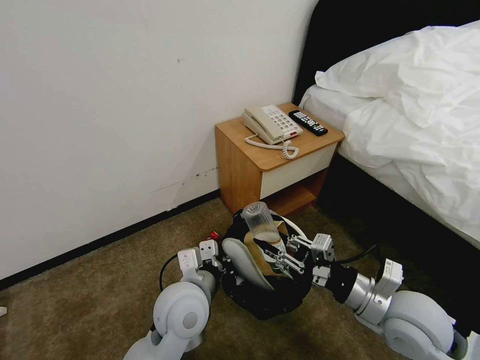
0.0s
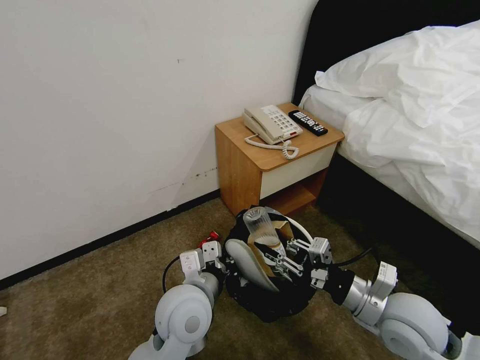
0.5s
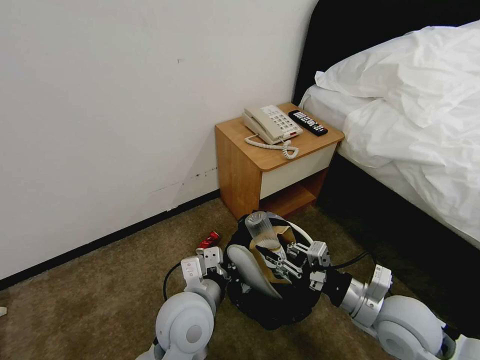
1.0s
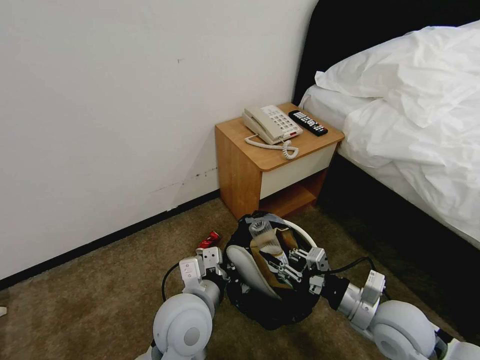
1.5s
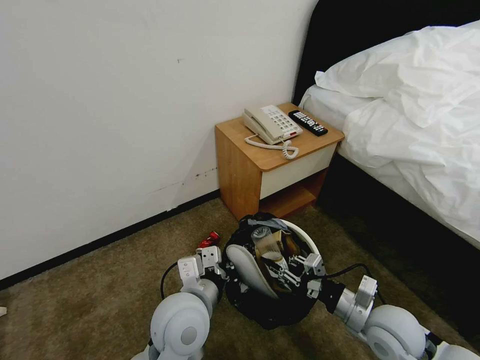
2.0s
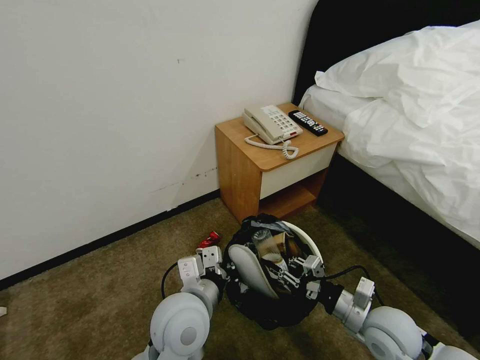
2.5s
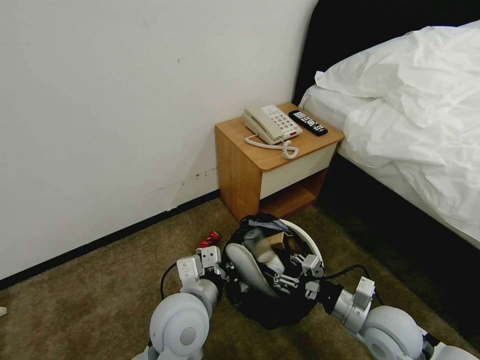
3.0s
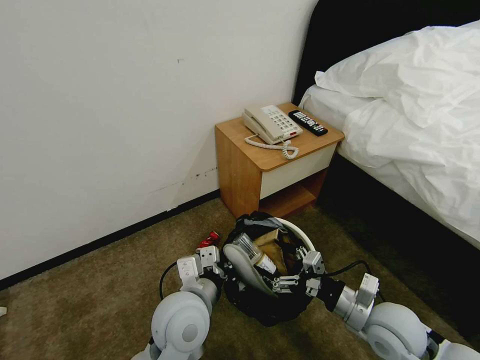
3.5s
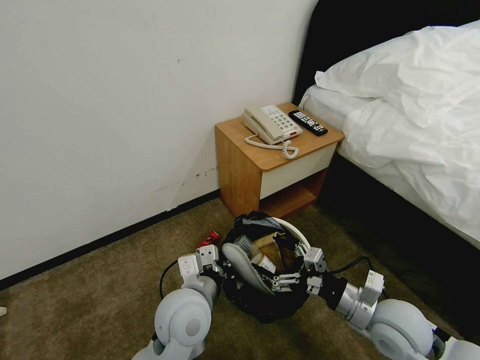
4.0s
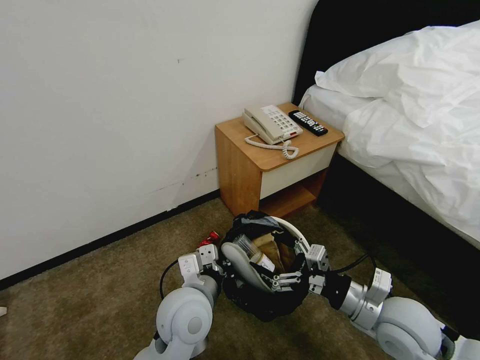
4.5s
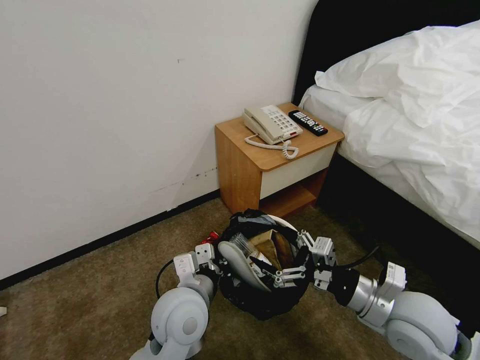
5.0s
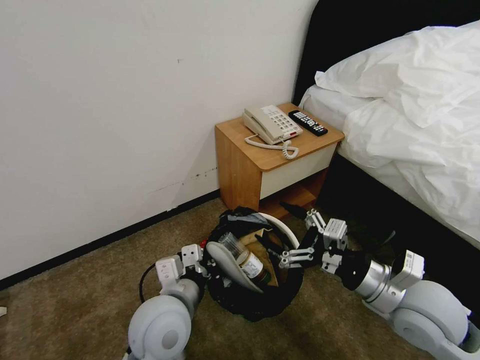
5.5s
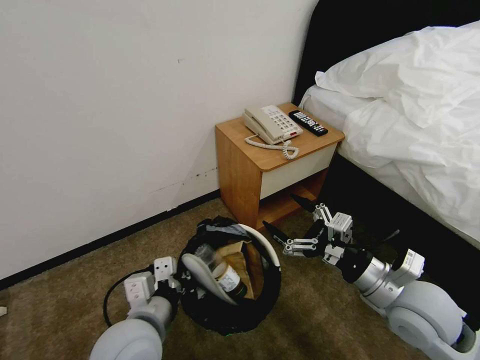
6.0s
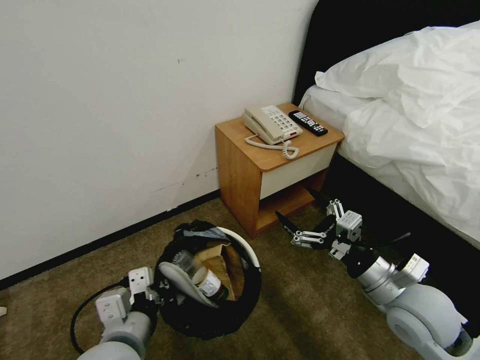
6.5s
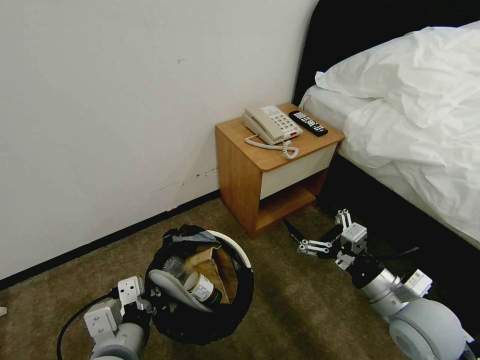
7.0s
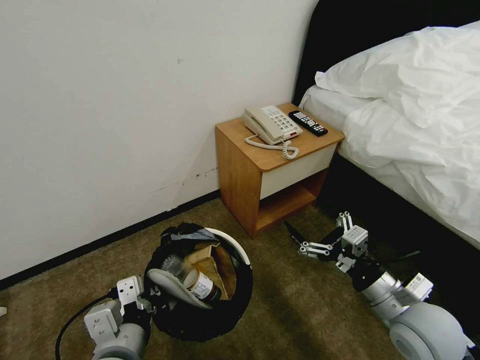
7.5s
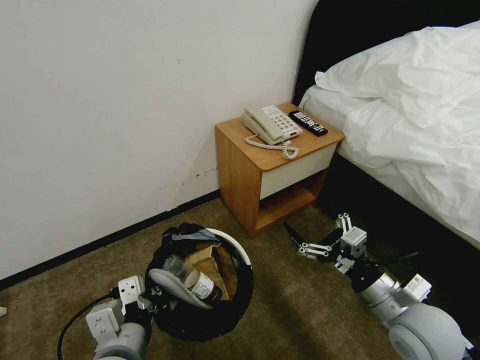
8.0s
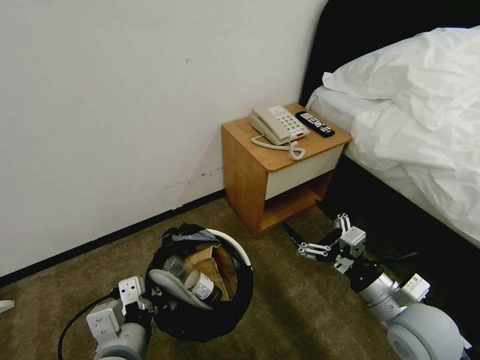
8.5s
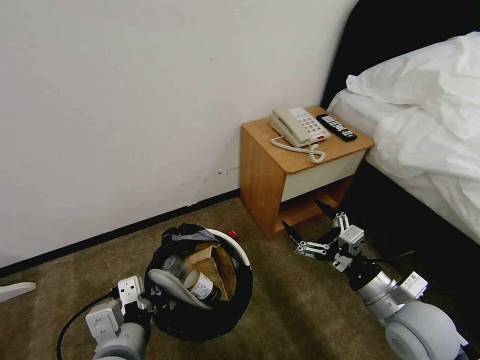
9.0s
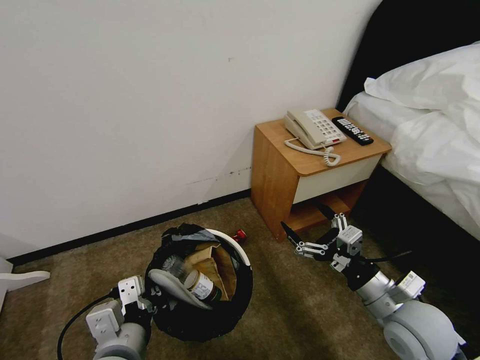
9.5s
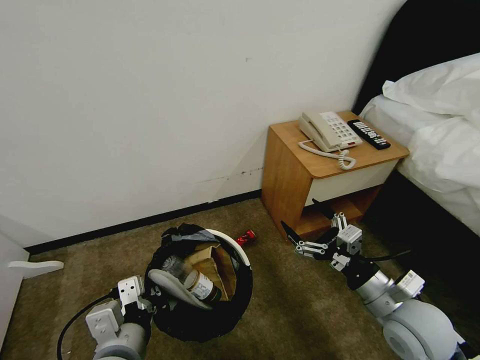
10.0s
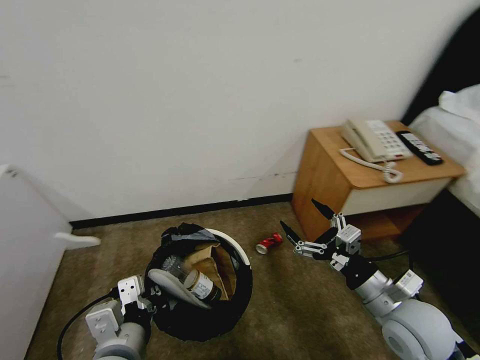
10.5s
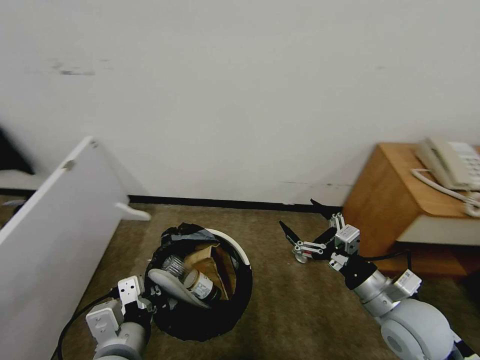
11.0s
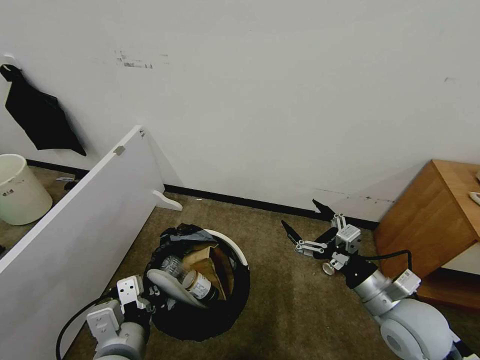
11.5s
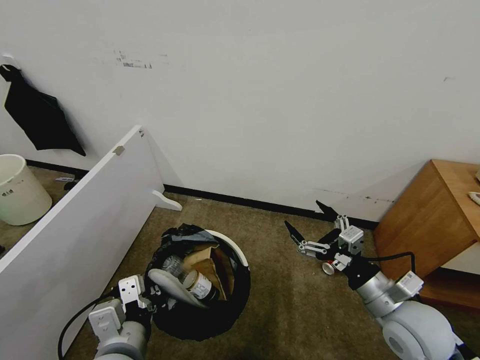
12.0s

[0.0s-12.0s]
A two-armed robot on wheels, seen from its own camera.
Task of the whole recording: Pick up the trash bin, then pick up the garbage from the floor and place it into the trash bin.
0.0s to 2.0s: The right gripper heads downward, covering about 10 cm.
2.0s to 4.0s: The right gripper opens up.
4.0s to 6.0s: The right gripper goes approximately 5 cm upward. The left gripper is displaced to the left and backward by some 10 cm.
6.0s to 8.0s: There are only small adjustments of the grippers.

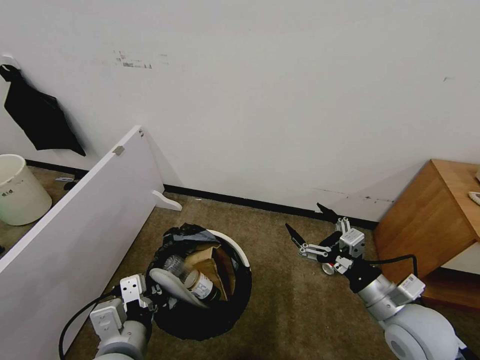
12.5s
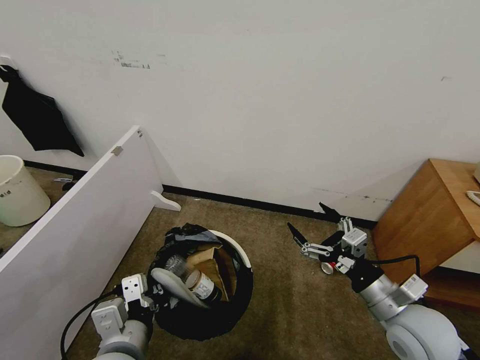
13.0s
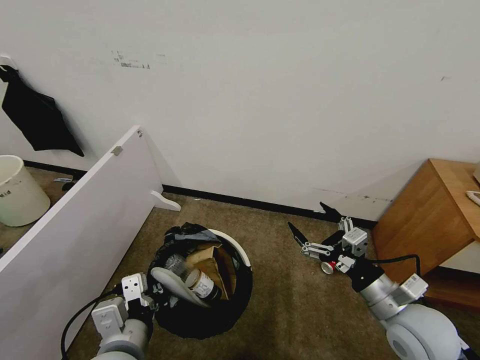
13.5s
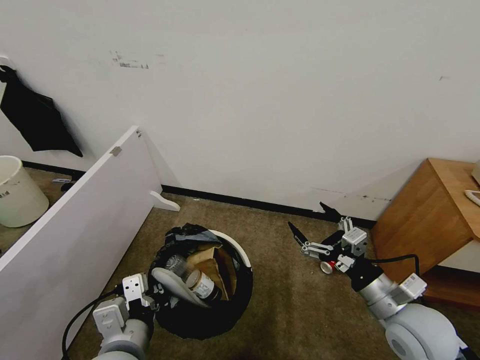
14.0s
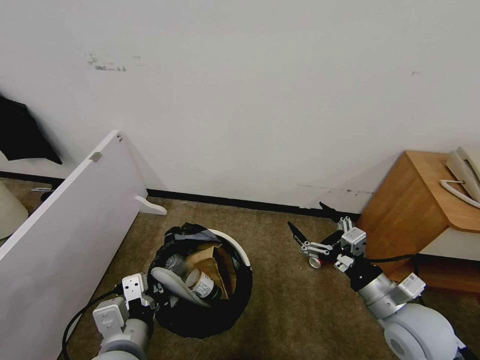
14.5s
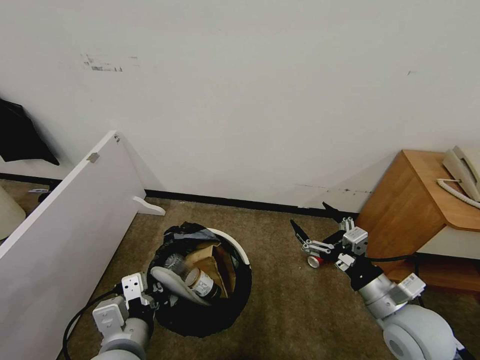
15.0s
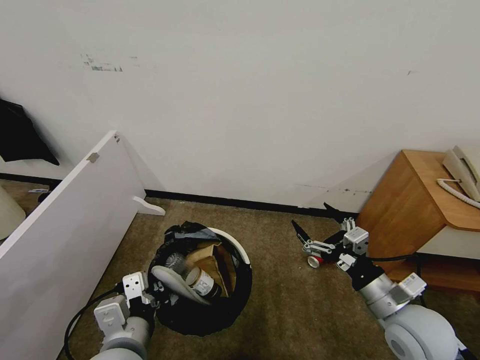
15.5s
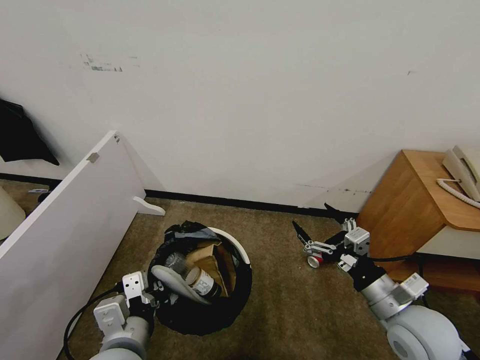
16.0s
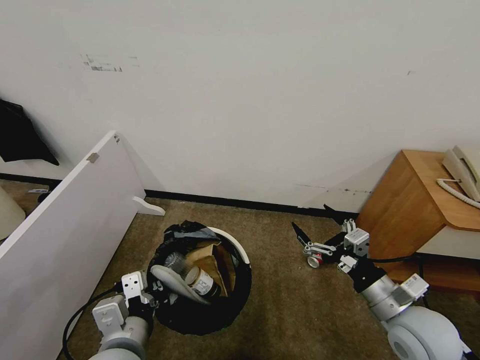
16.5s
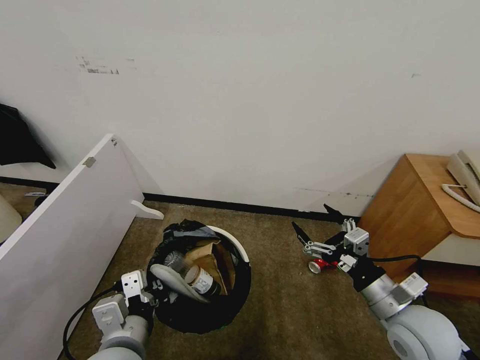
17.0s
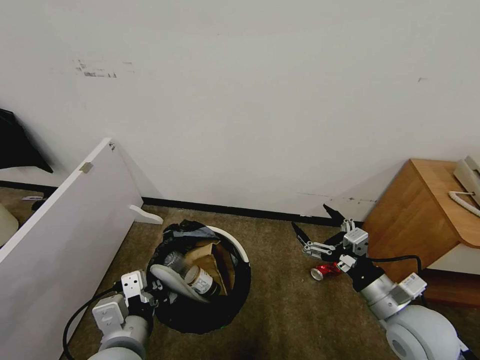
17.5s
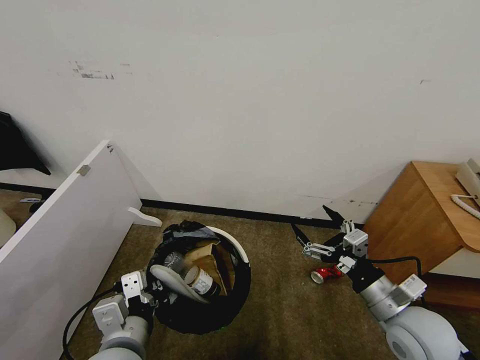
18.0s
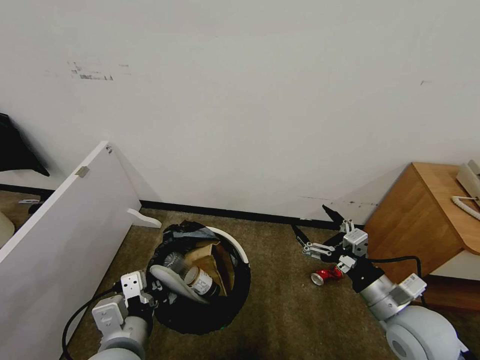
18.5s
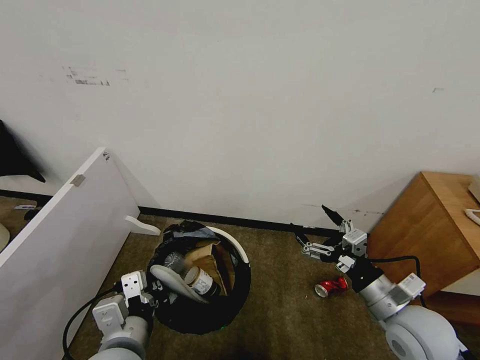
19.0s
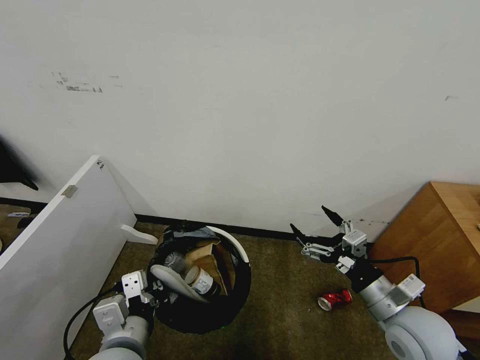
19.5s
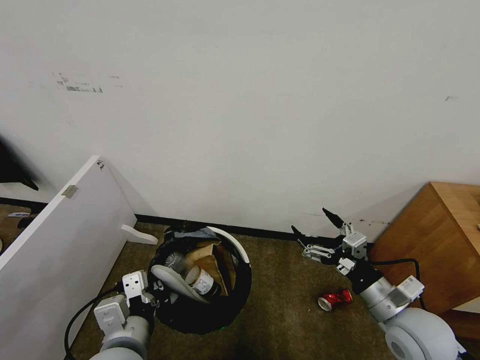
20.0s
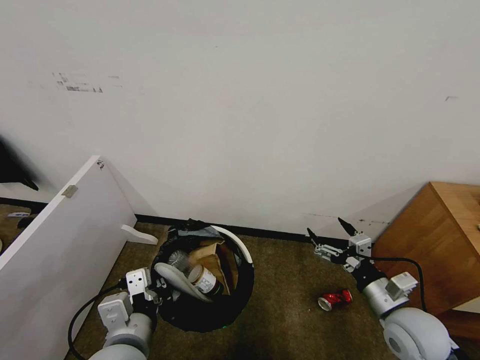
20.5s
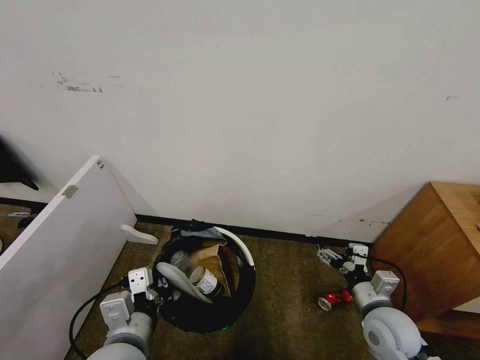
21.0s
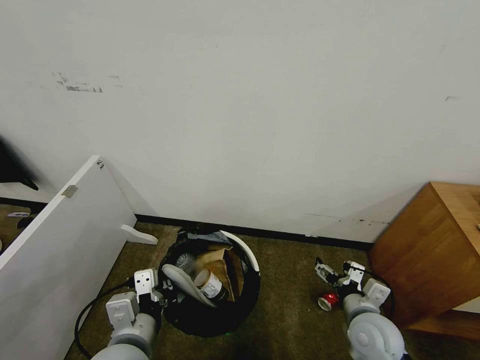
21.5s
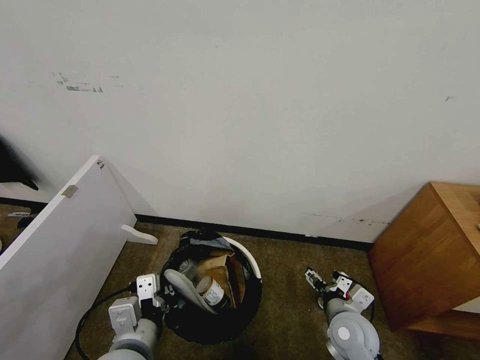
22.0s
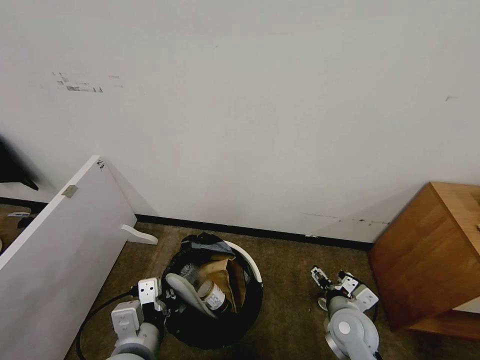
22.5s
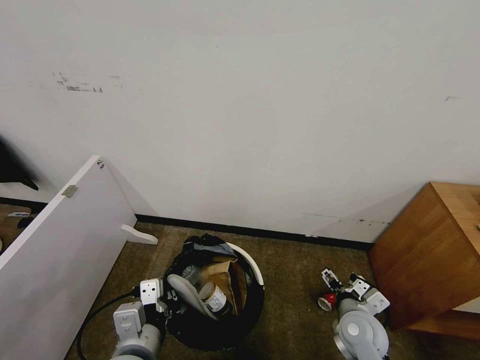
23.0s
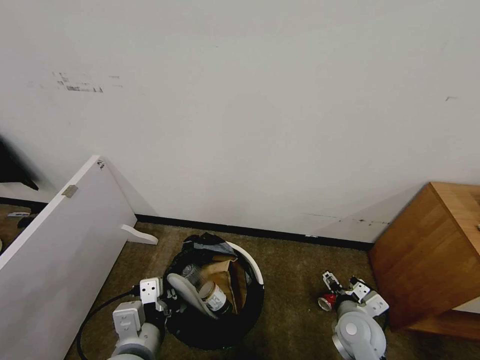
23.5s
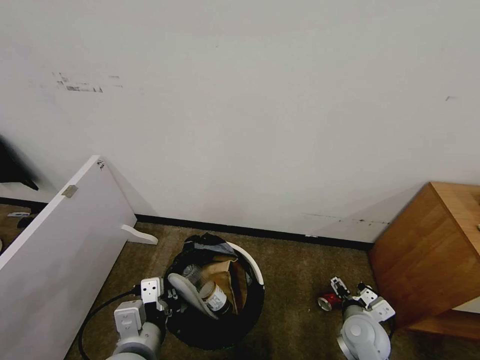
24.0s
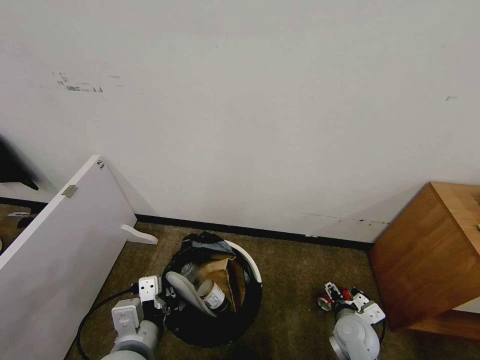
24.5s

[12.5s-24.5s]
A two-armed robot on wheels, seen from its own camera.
Task of the whole recording: Pick up the trash bin, then pick up the garbage from the floor and place it into the trash bin.
12.5s to 18.5s: Both grippers stay put.
18.5s to 20.5s: The grippers stay close to where they were, moving slightly.
20.5s to 22.5s: The right gripper is displaced downward and to the left by about 10 cm.
22.5s to 24.5s: The right gripper is displaced downward by about 5 cm.

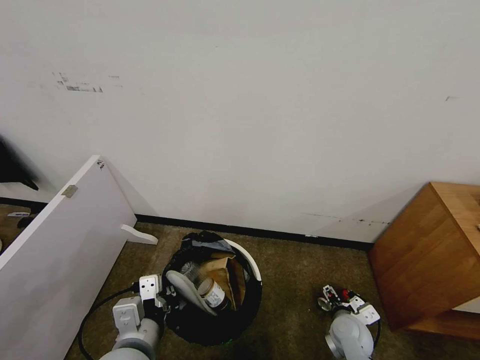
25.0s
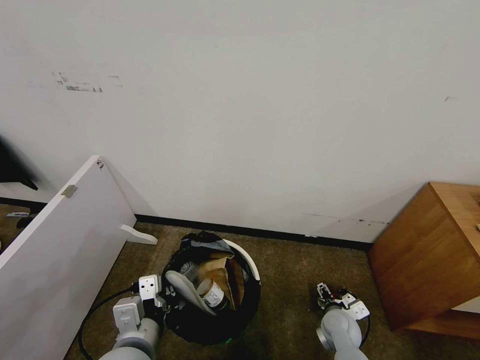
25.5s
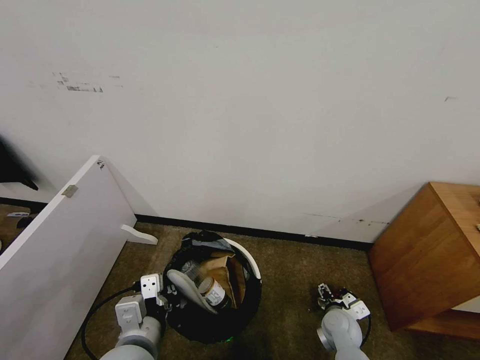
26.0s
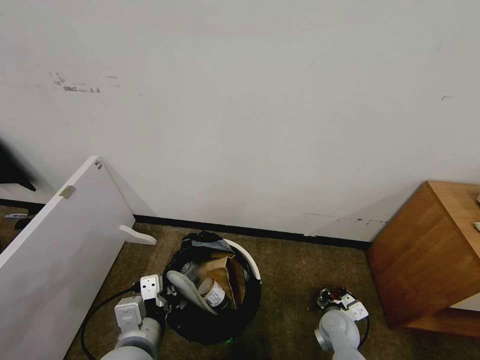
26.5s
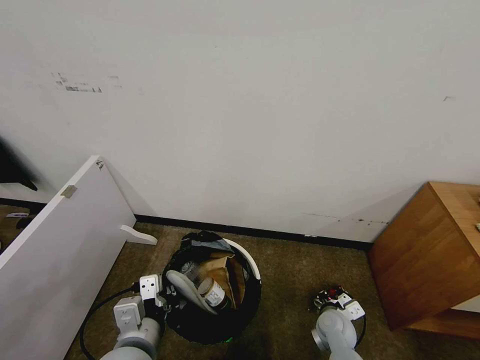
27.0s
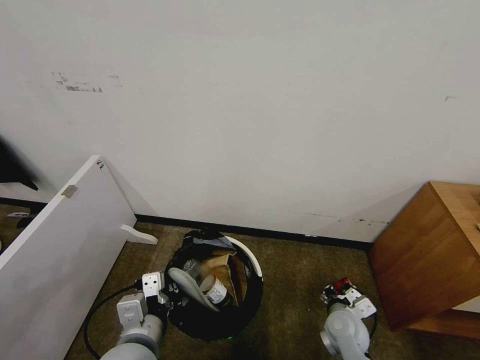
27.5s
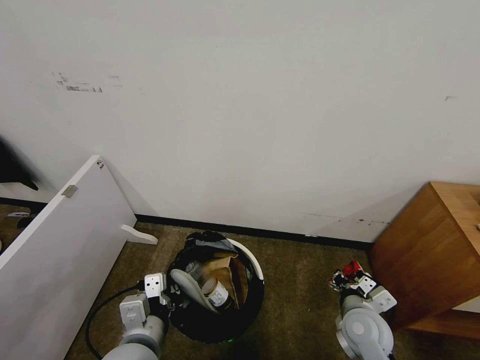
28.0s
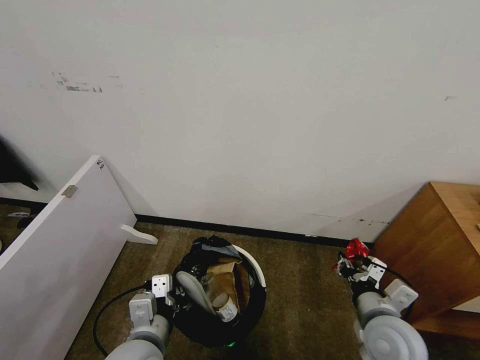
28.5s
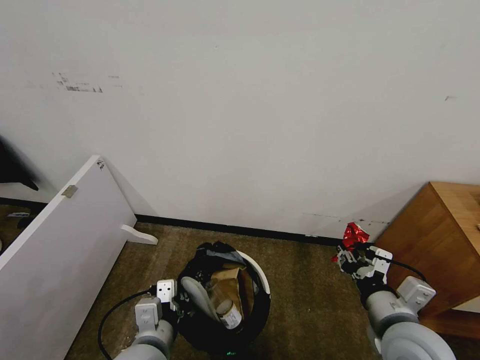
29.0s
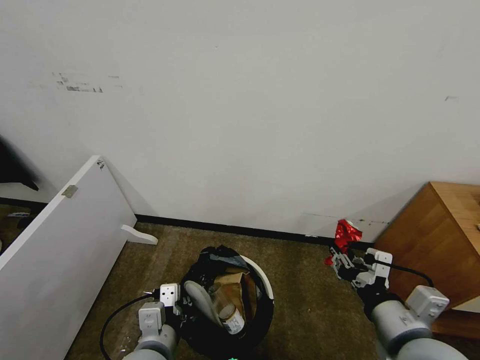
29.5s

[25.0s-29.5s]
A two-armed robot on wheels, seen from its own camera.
Task of the whole recording: Pick up the trash bin, then pick up the garbage from the floor and place it into the trash bin.
25.0s to 27.0s: The right gripper closes.
27.0s to 29.5s: The right gripper shifts roughly 30 cm upward and backward.
